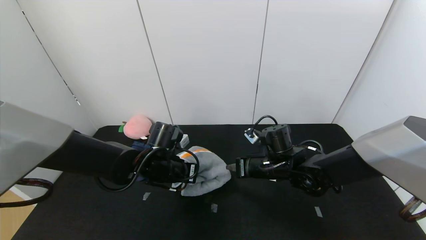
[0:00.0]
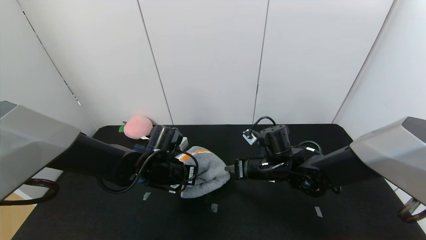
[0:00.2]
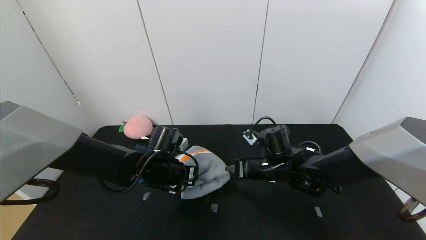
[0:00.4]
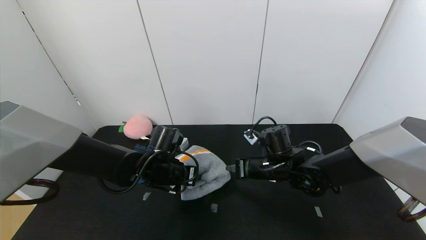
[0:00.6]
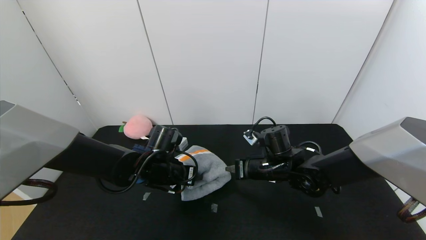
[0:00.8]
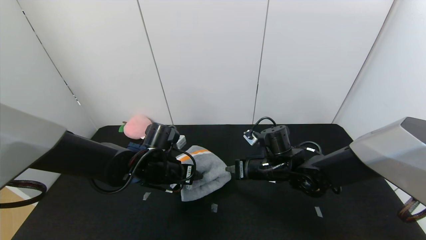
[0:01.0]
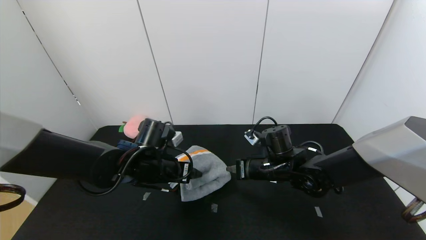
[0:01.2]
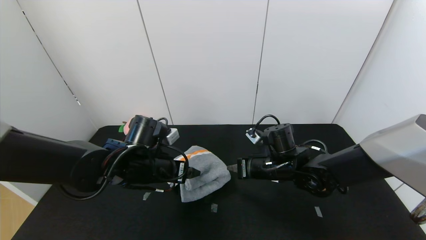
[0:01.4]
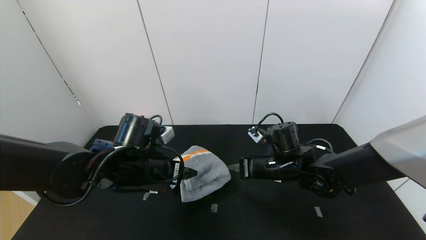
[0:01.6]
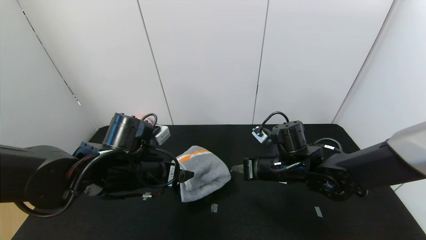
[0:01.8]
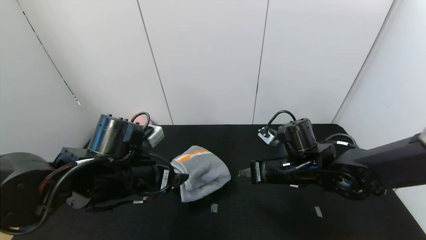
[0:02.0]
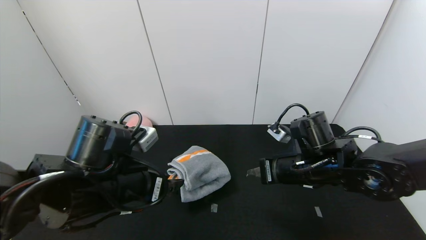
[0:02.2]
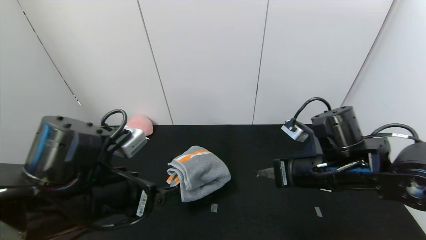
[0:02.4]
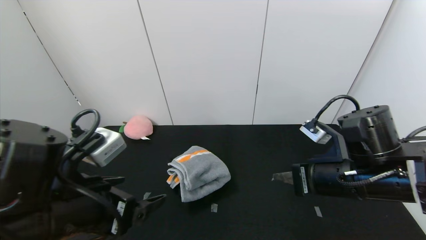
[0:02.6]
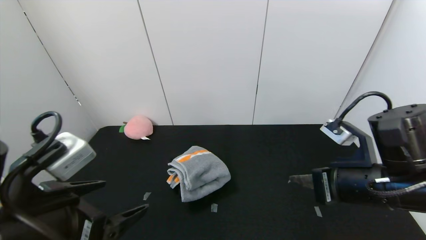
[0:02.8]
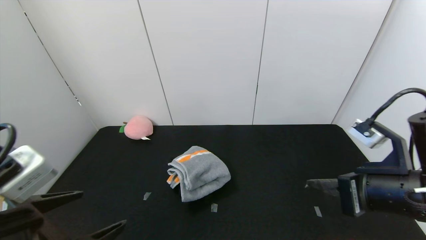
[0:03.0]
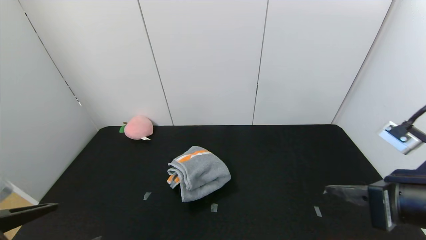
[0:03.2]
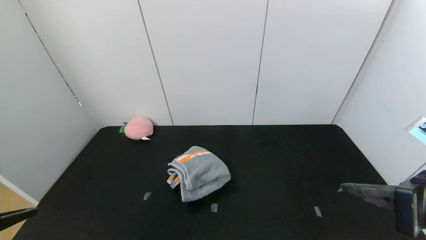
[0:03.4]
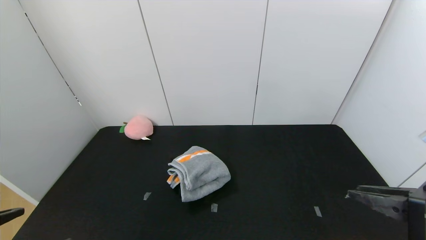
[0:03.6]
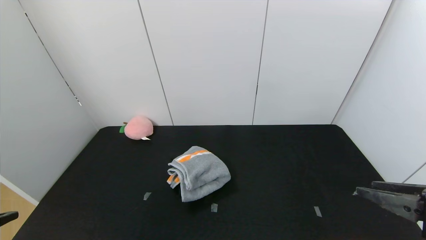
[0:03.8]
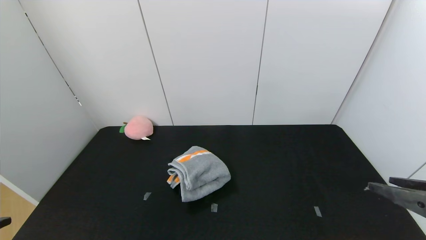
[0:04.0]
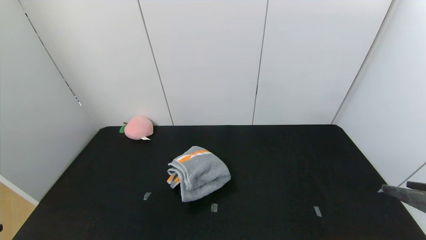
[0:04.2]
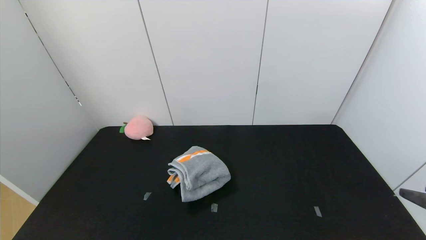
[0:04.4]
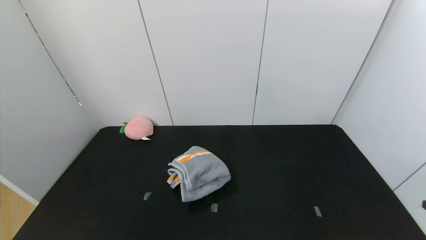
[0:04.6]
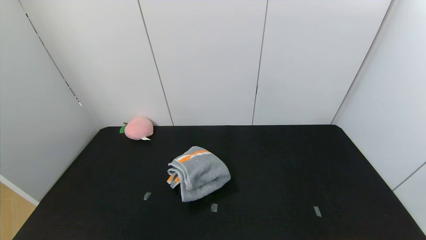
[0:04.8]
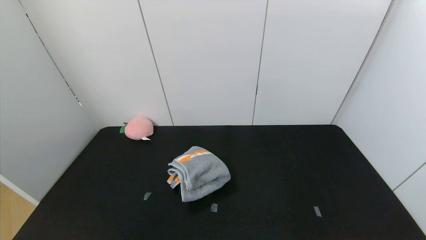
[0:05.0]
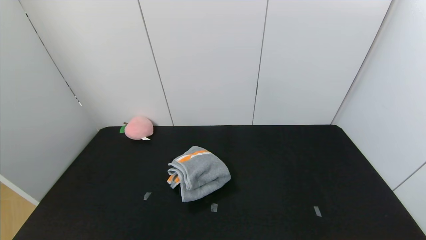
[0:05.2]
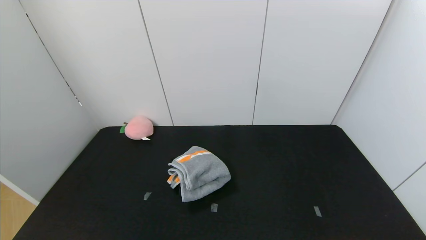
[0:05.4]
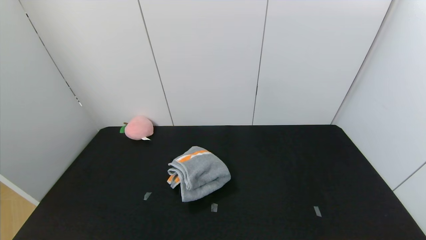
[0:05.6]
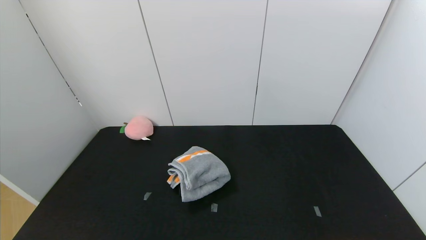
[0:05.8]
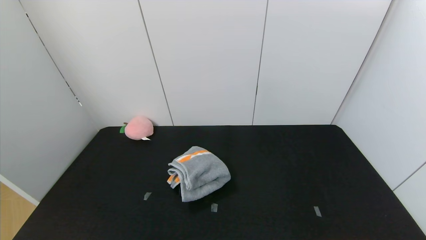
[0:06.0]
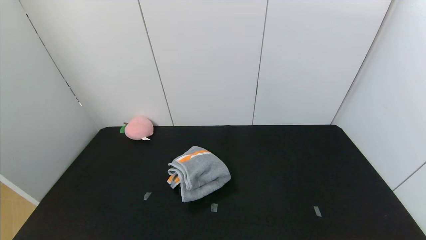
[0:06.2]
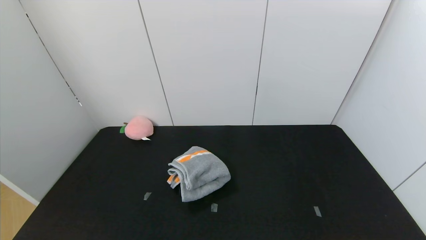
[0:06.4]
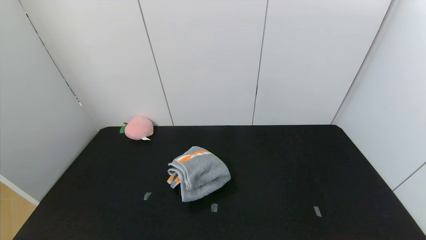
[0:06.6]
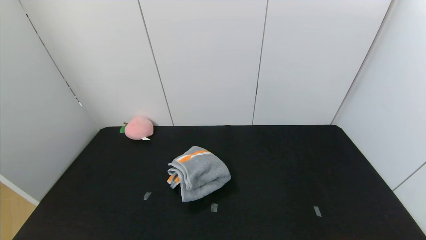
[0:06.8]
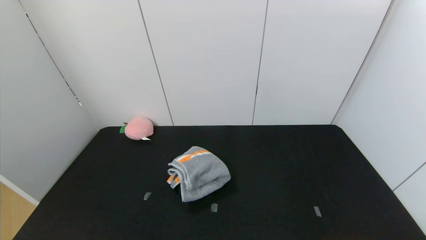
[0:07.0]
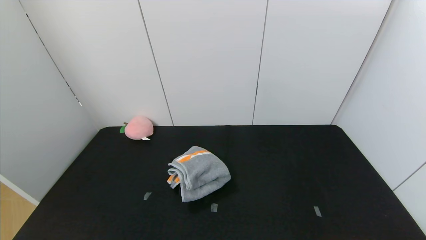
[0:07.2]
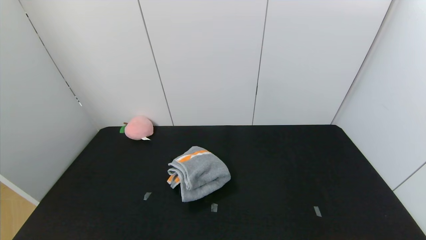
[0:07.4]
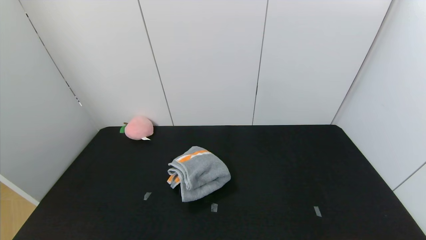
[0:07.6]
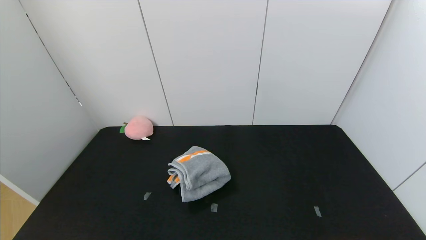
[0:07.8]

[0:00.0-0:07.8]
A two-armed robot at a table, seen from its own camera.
Task of the whole recording: Use the gripper to fold the yellow towel and grey towel in half twice,then put the yellow towel on the grey towel.
0:00.0 to 0:01.6: The left gripper shifts by roughly 5 cm, and opens its fingers.
0:01.6 to 0:03.2: The right gripper moves backward, to the right and upward, some 25 cm; the left gripper is displaced backward by about 20 cm.
0:03.2 to 0:04.6: The right gripper moves backward and to the right, roughly 15 cm, and opens. The left gripper moves backward, about 10 cm.
